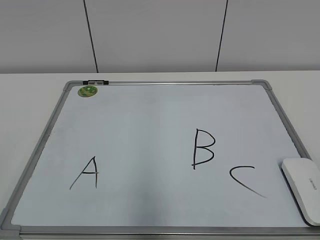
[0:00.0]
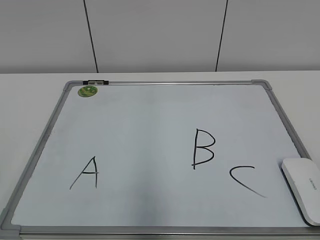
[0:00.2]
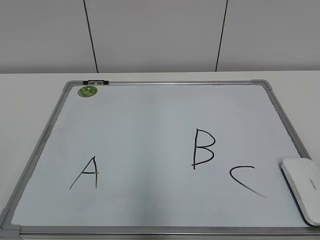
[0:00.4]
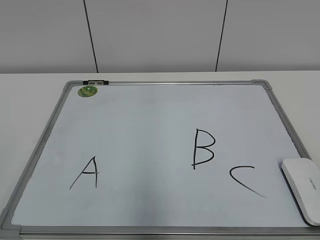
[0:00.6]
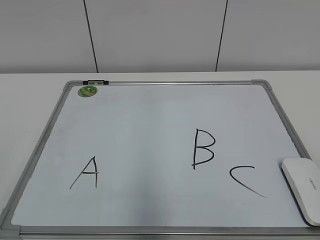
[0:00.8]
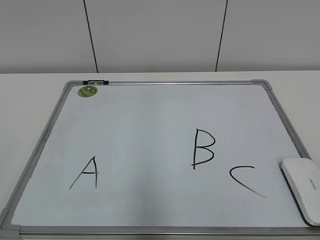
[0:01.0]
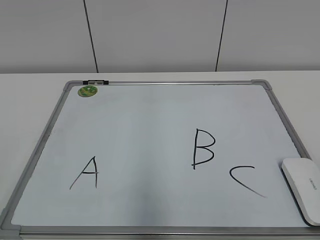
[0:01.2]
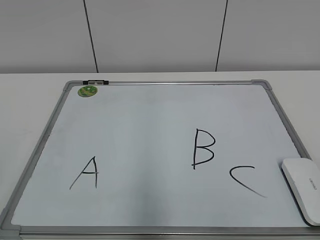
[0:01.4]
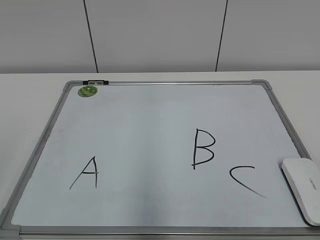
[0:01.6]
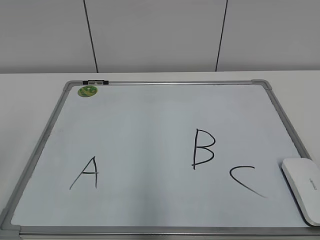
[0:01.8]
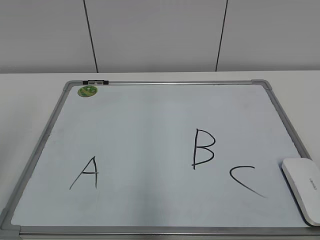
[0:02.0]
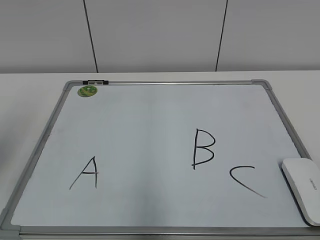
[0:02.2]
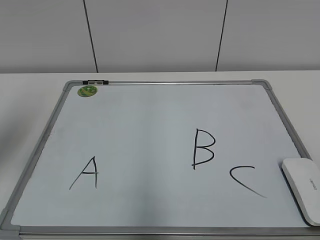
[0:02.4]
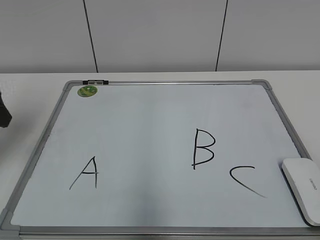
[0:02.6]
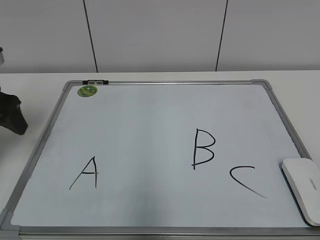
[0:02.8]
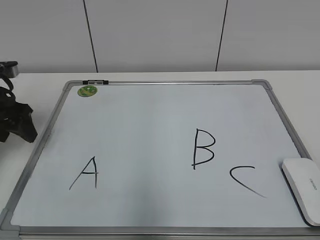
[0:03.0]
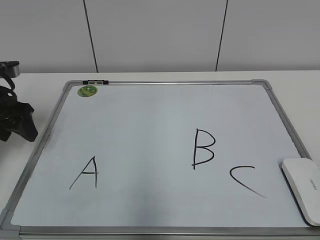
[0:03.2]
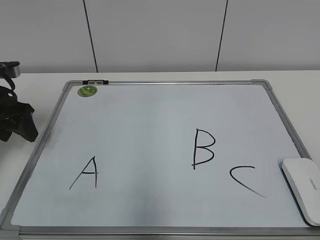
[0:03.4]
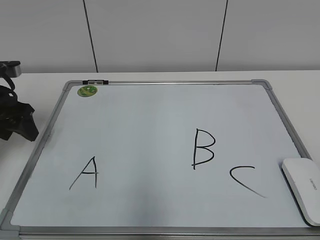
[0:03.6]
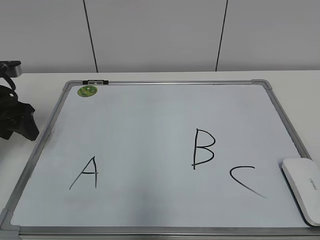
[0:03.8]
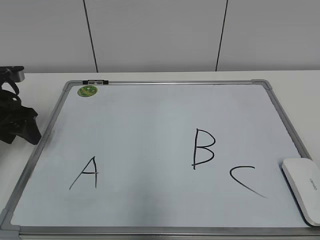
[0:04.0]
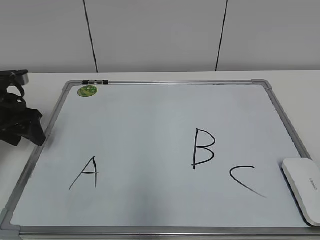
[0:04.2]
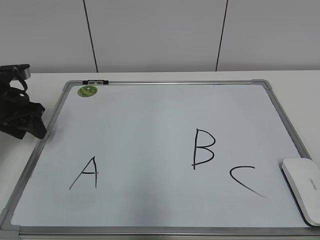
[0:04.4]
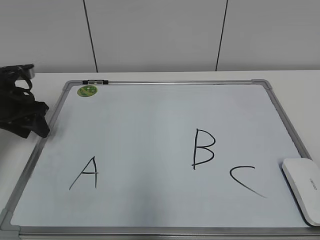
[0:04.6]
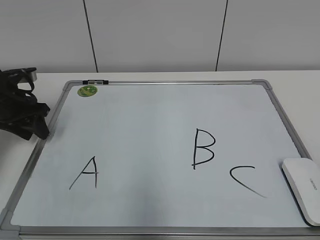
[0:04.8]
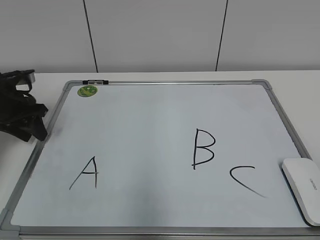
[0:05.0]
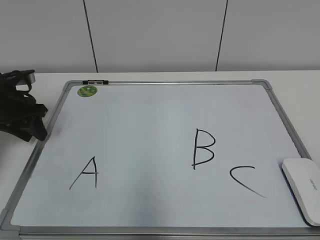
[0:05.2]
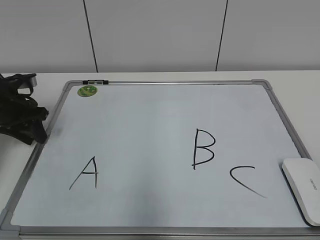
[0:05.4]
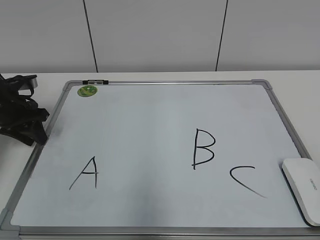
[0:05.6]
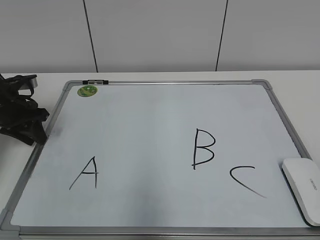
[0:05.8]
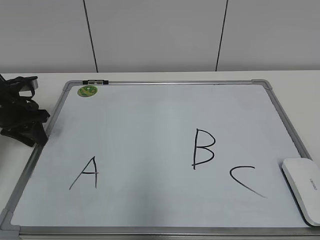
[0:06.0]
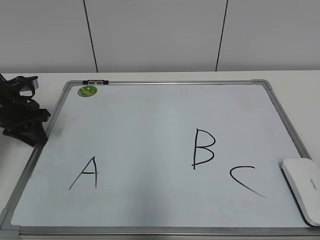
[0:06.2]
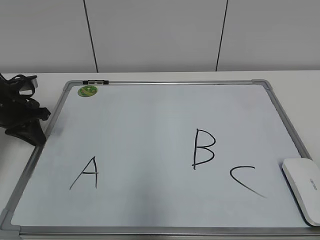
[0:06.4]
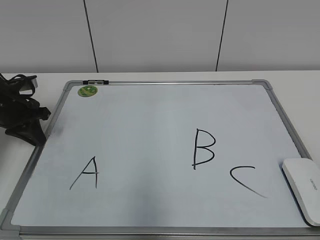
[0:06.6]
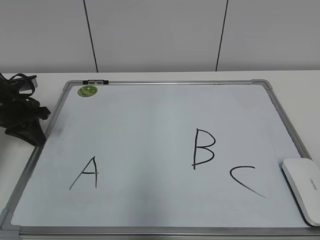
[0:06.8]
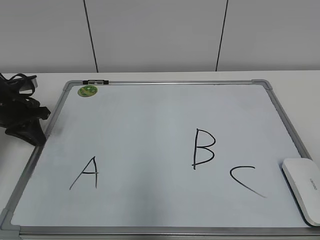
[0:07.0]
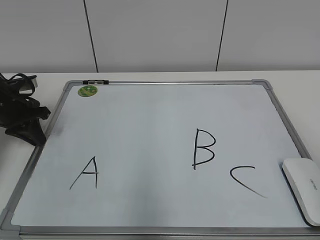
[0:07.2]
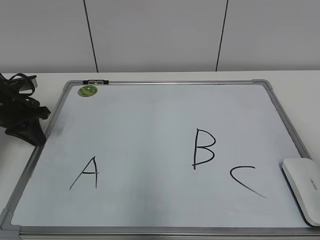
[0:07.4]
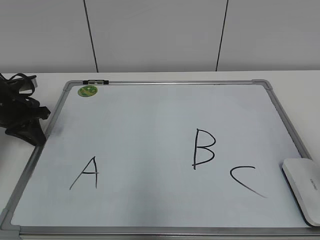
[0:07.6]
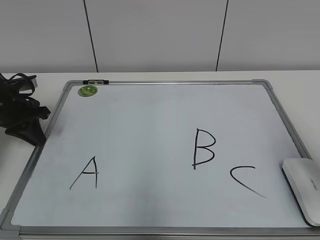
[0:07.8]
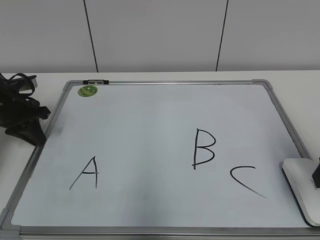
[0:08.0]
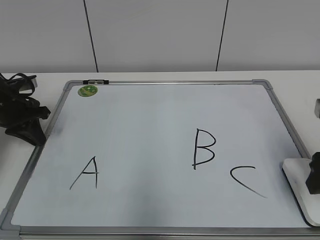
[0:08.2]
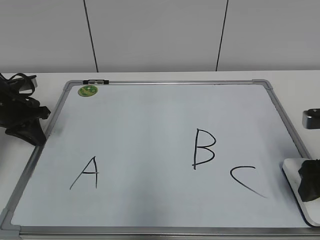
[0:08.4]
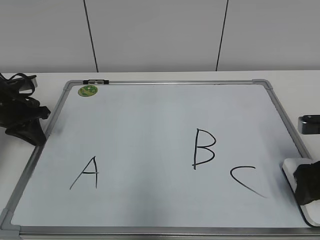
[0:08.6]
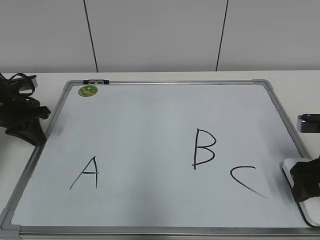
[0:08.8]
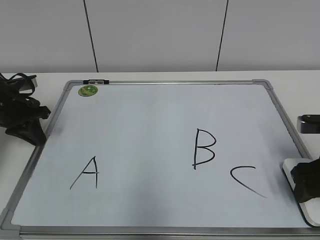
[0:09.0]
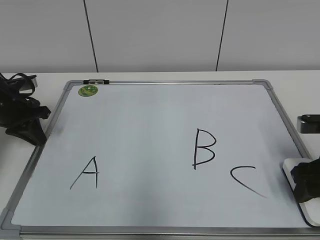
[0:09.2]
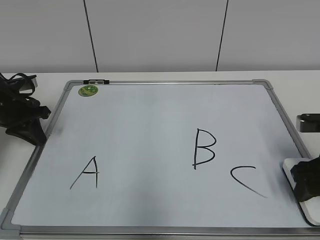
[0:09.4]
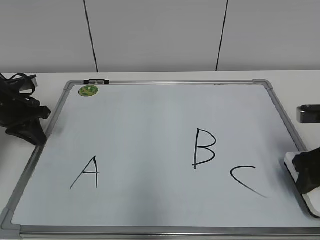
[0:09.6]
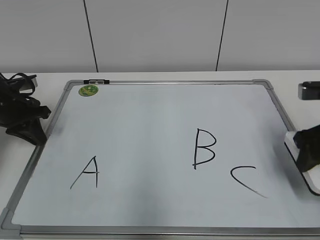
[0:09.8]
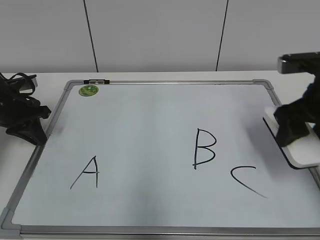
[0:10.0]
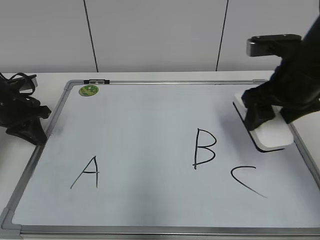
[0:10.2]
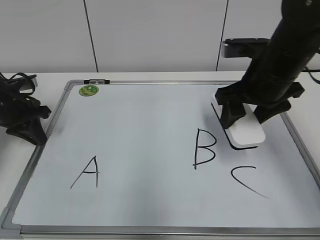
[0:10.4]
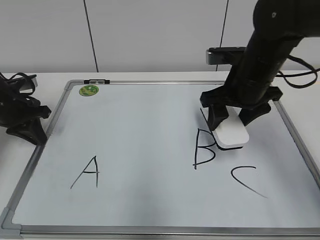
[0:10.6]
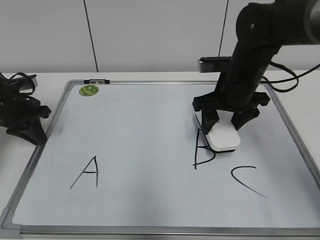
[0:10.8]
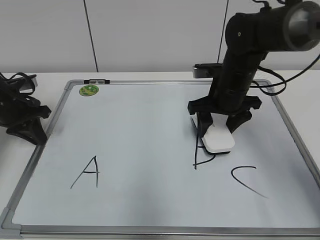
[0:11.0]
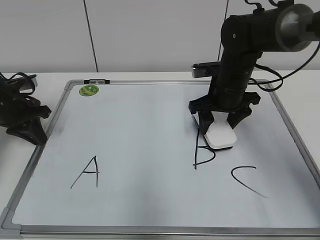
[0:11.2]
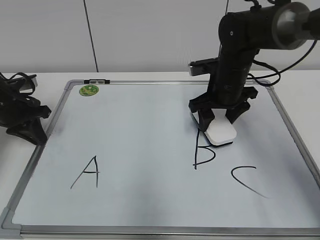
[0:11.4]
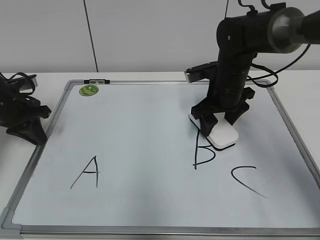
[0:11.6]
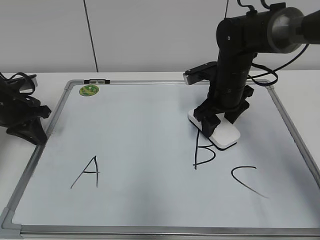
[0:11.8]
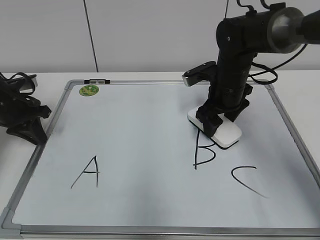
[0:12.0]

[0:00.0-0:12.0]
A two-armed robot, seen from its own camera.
Task of the whole recording: pick up the eraser on the blackboard and erase the letter "B".
Step, 0:00.0 to 0:06.2: Hold the drawing board steady with your left hand.
Step, 0:06.6 to 0:09.2: Grab the eraser with your right hand.
0:01.6 to 0:03.0: The left gripper moves forward, roughly 30 cm.
0:03.0 to 0:04.4: The grippers make only small movements.
0:04.4 to 0:06.0: The grippers make only small movements.
0:06.0 to 0:07.6: The right gripper is displaced forward by about 15 cm.
0:07.6 to 0:09.0: The right gripper is displaced downward and forward by some 15 cm.
0:09.0 to 0:10.4: The right gripper travels to the left, upward and forward by some 15 cm.
0:10.4 to 0:12.0: The right gripper shifts about 10 cm forward and downward.

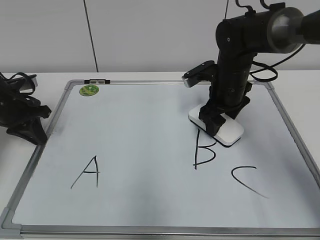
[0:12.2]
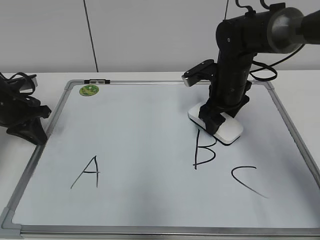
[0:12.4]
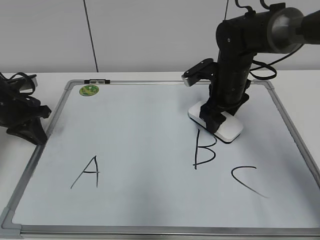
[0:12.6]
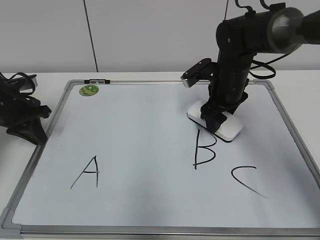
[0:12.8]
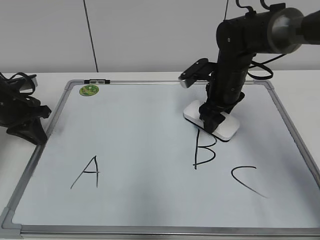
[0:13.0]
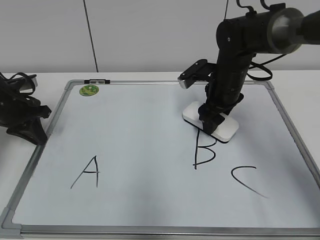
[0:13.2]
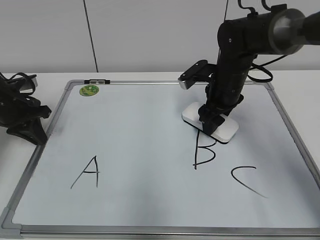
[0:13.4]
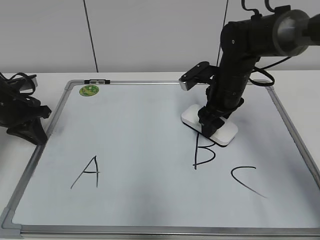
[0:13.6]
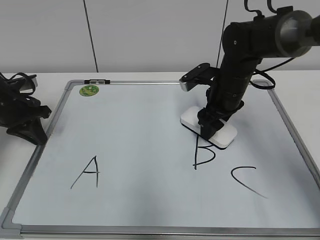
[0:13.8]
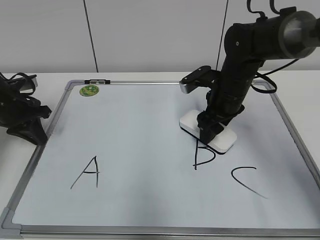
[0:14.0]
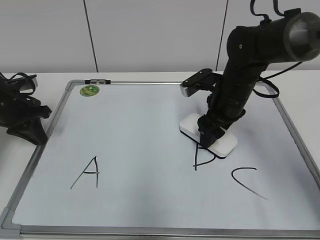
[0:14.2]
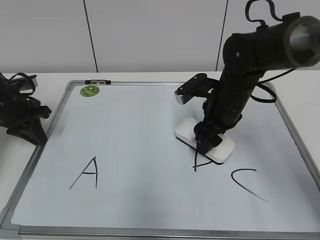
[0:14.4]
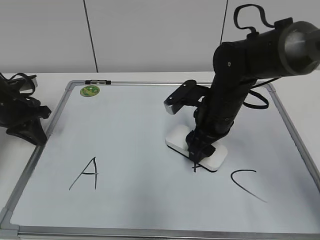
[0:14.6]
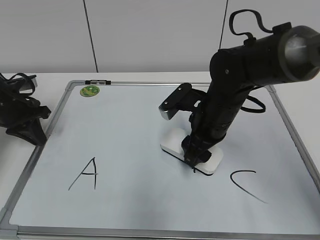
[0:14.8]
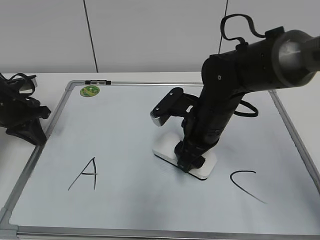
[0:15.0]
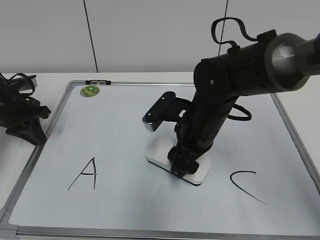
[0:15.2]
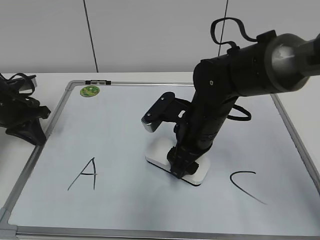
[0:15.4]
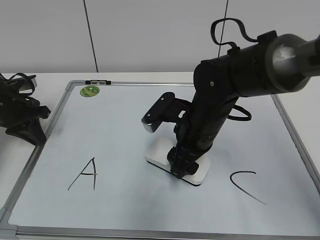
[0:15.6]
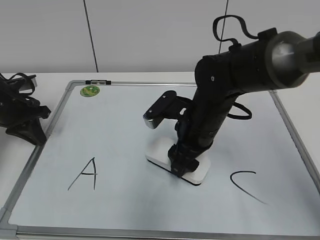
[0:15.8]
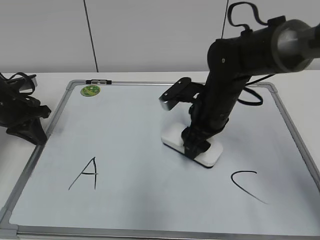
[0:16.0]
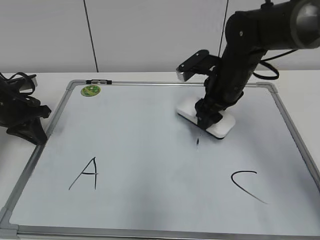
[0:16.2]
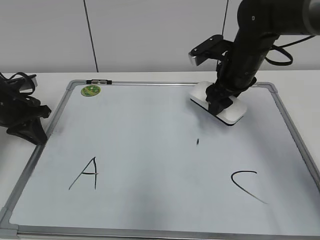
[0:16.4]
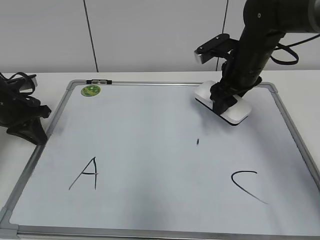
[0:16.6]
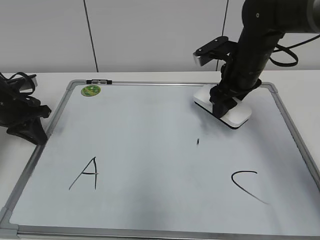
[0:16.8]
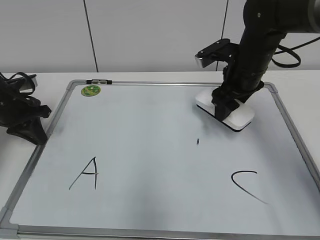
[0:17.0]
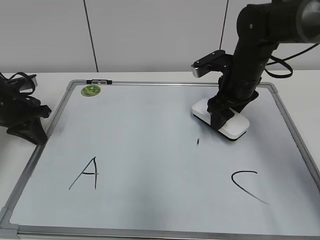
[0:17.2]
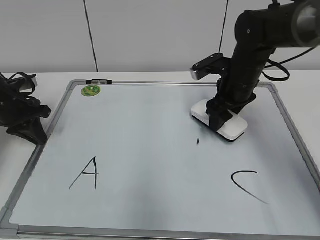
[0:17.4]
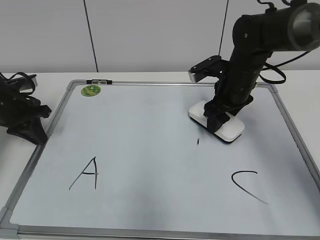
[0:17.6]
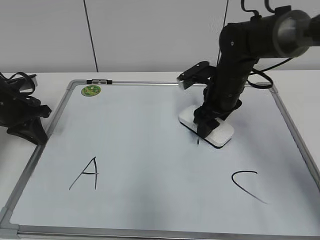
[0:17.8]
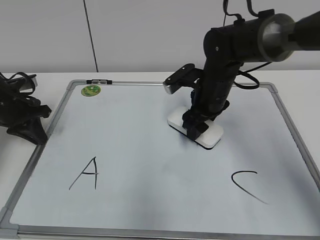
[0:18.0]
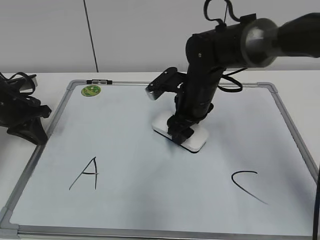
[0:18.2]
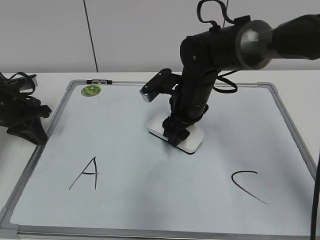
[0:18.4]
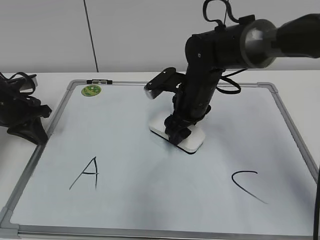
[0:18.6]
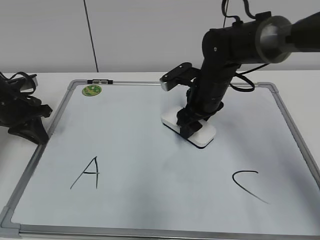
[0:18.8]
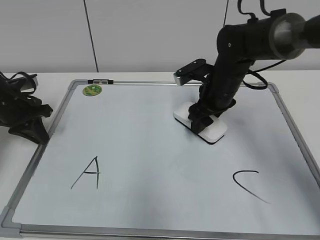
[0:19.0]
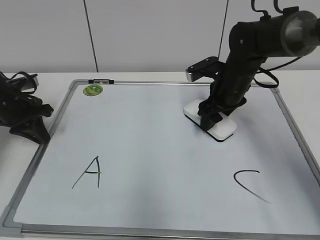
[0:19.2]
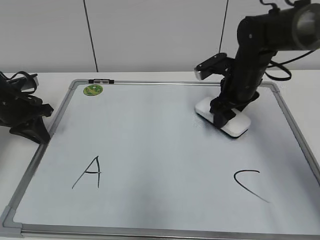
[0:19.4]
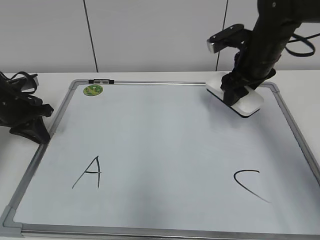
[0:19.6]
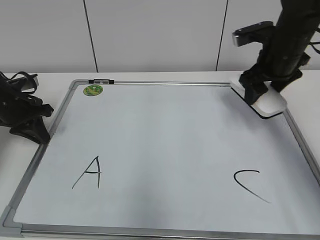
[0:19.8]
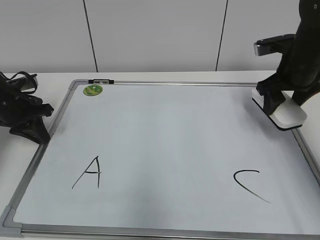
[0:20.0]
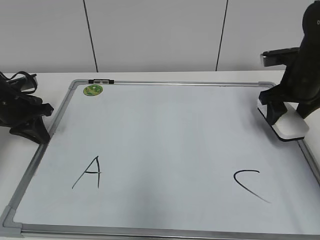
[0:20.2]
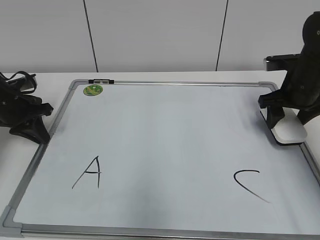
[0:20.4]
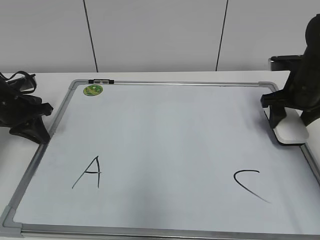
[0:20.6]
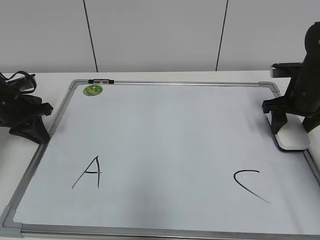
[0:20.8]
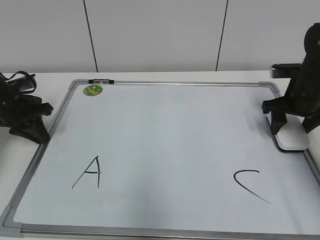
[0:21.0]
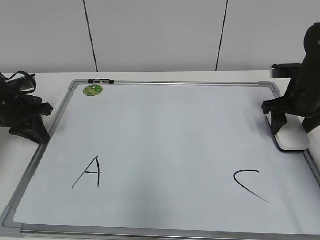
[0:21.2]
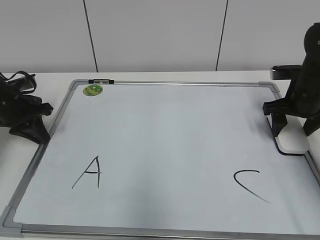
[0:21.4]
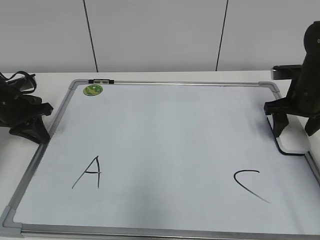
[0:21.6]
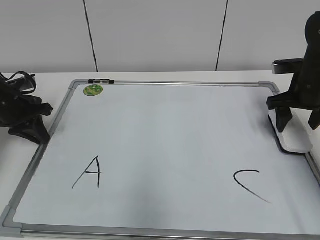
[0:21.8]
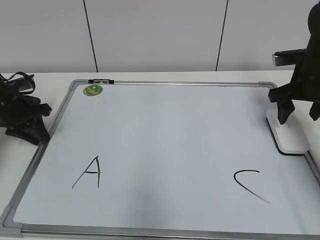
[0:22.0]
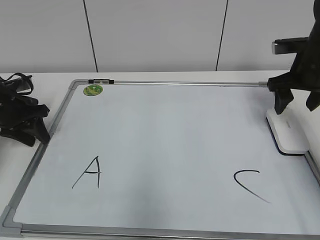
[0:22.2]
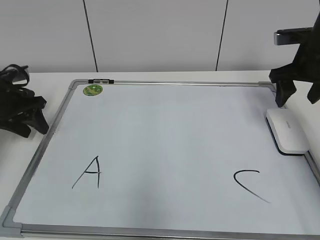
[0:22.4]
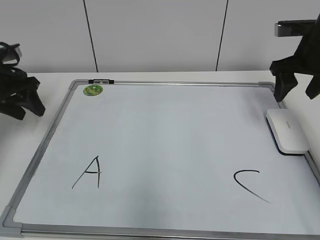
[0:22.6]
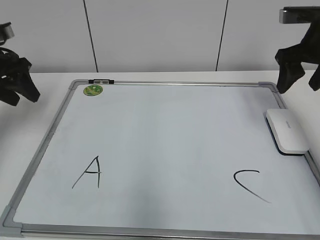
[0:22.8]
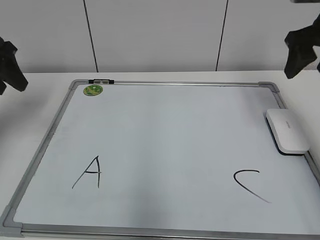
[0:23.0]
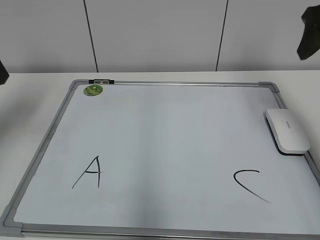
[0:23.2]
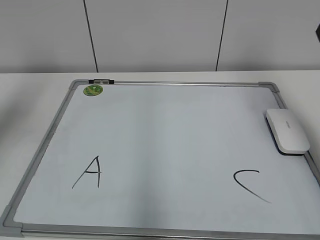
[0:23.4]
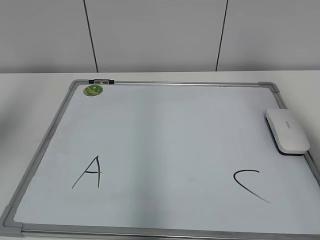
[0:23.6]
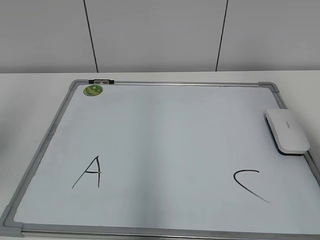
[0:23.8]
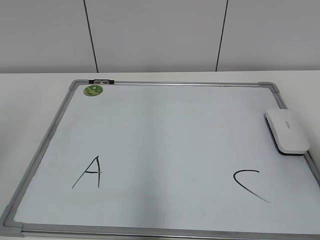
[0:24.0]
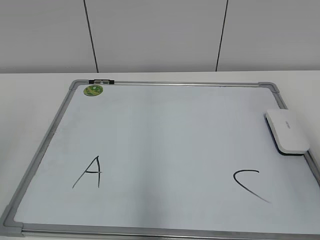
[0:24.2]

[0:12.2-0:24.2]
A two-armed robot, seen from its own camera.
Task of the whole recording: pick up the eraser on the blackboard and erase the letter "B".
Step, 0:12.2 to 0:18.8: Erase the letter B with your right hand.
Step, 0:19.0 to 0:21.4: Put down the eraser with your right hand.
0:12.2 to 0:13.8: The grippers make only small movements.
0:13.8 to 0:15.2: The right gripper heads backward and to the left, covering approximately 10 cm.
0:15.2 to 0:16.6: The right gripper travels forward, to the right and upward by some 15 cm.
0:16.6 to 0:18.2: The right gripper goes approximately 10 cm to the left and downward.
0:18.2 to 0:19.8: The right gripper goes some 15 cm to the right and upward.
0:19.8 to 0:21.2: The right gripper travels downward and to the right by about 10 cm.
0:21.2 to 0:22.6: The two grippers go some 5 cm upward. The left gripper opens.
0:22.6 to 0:24.2: Both grippers move backward and upward, approximately 35 cm.
